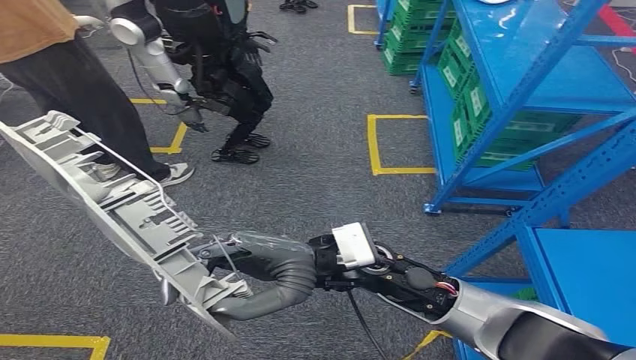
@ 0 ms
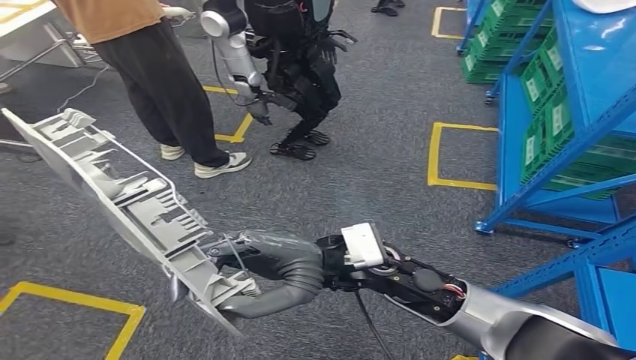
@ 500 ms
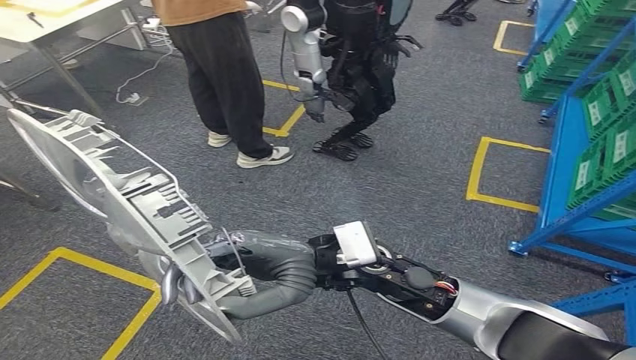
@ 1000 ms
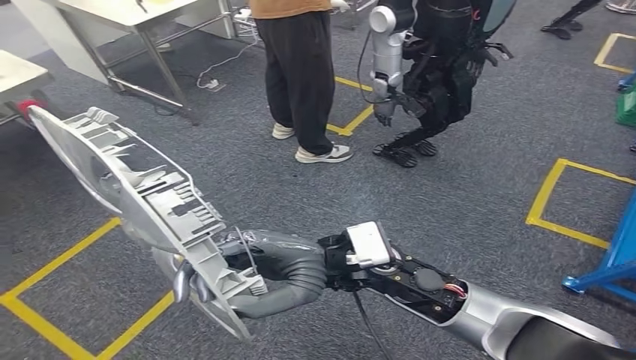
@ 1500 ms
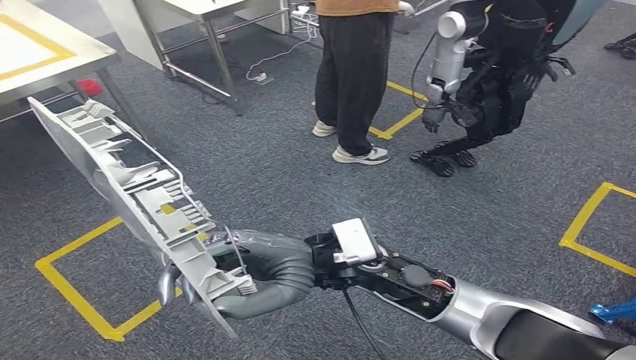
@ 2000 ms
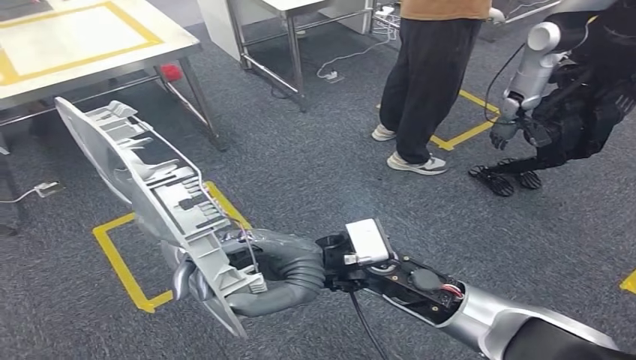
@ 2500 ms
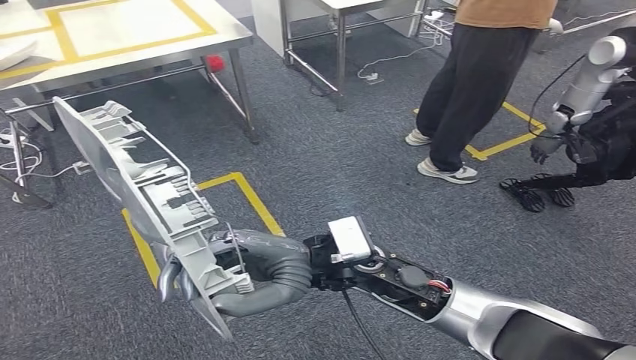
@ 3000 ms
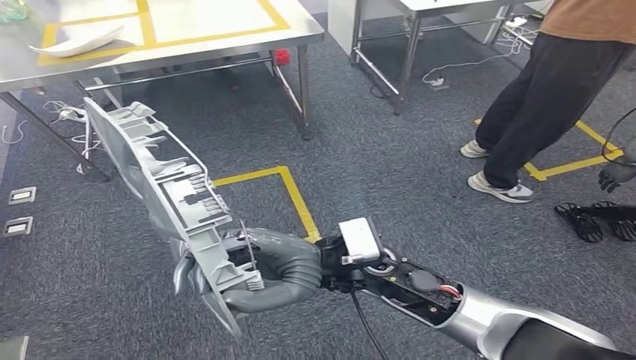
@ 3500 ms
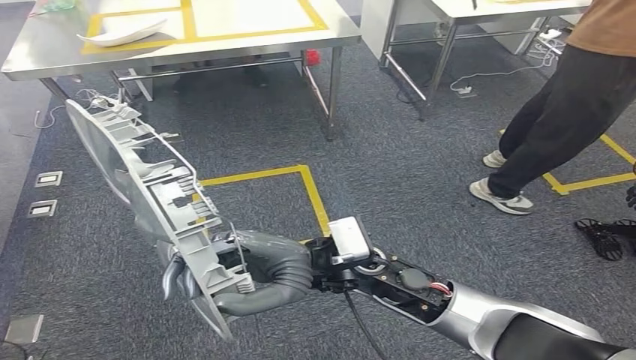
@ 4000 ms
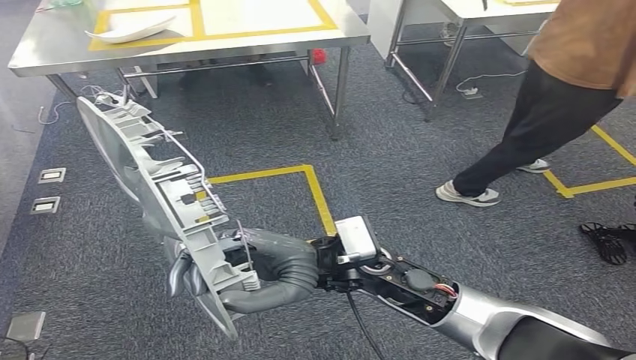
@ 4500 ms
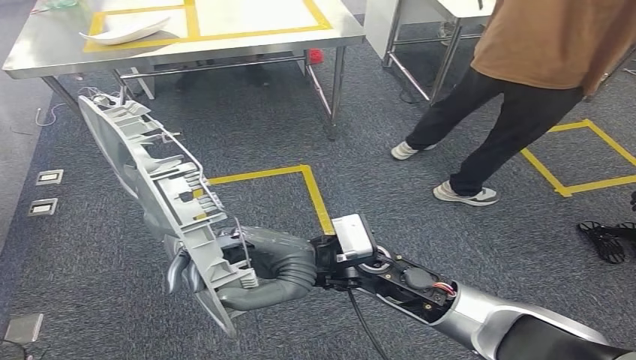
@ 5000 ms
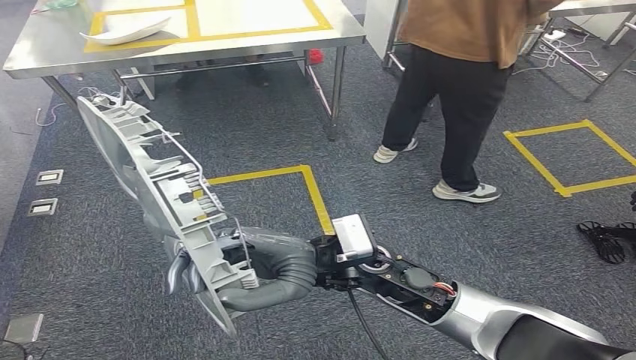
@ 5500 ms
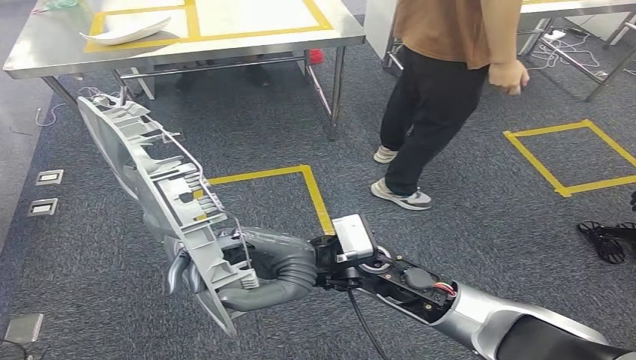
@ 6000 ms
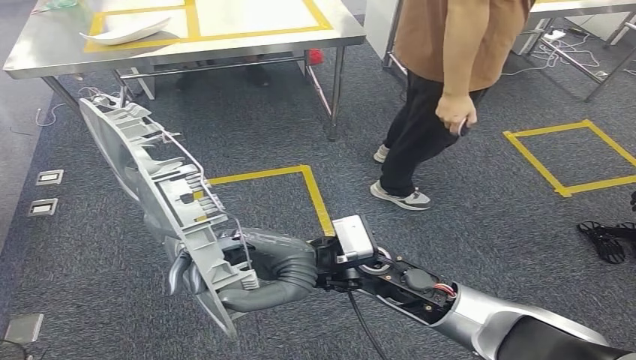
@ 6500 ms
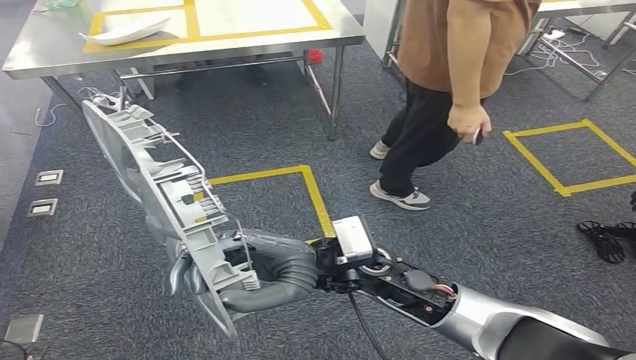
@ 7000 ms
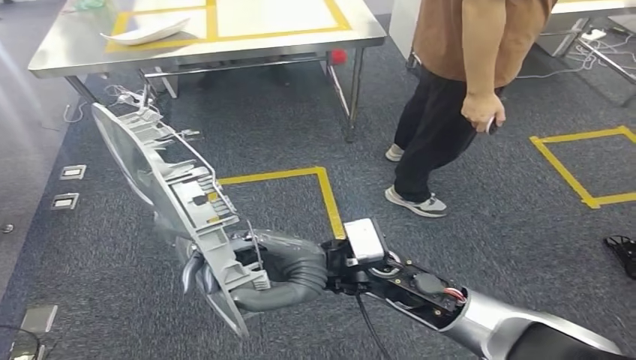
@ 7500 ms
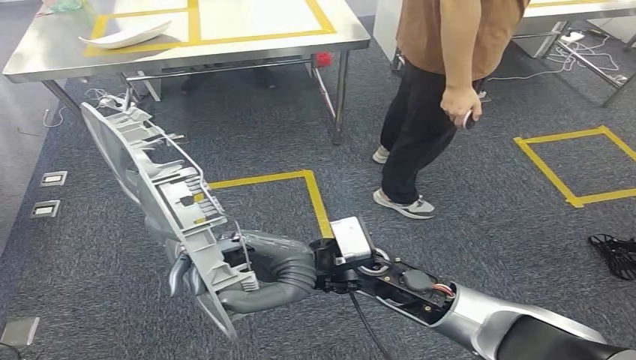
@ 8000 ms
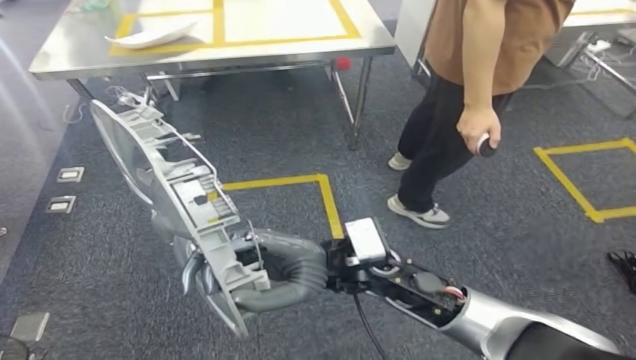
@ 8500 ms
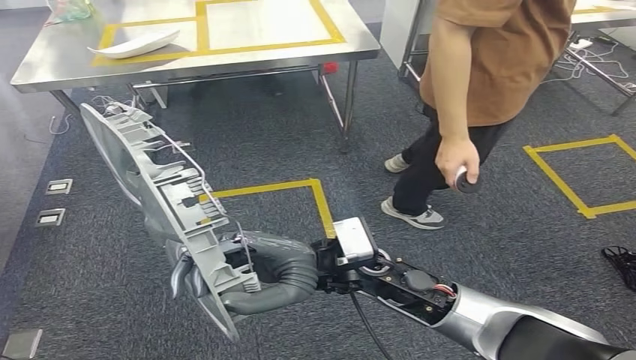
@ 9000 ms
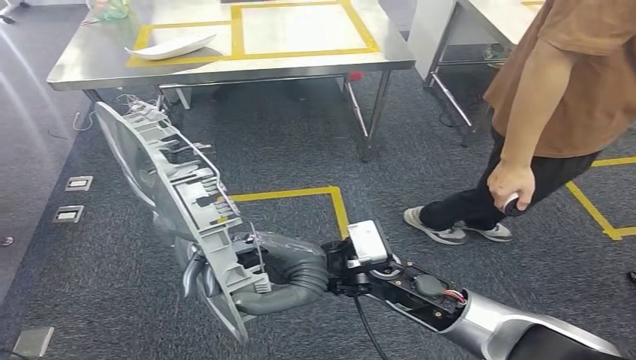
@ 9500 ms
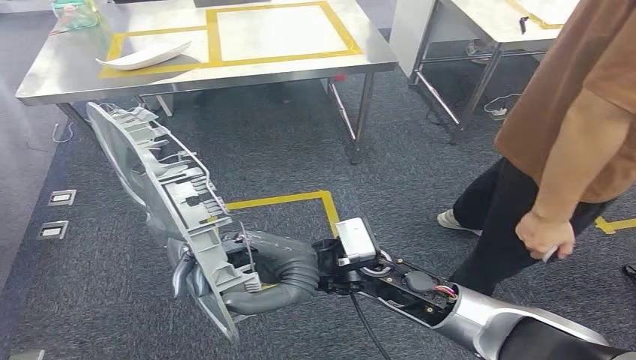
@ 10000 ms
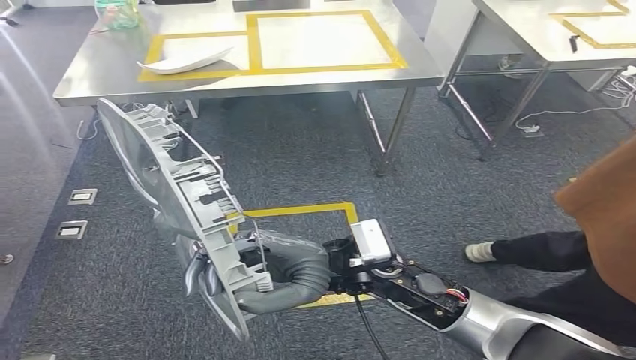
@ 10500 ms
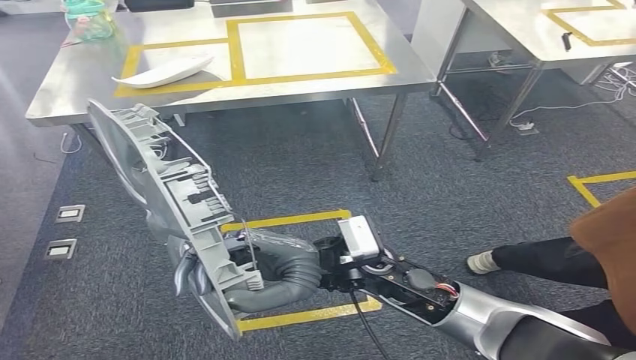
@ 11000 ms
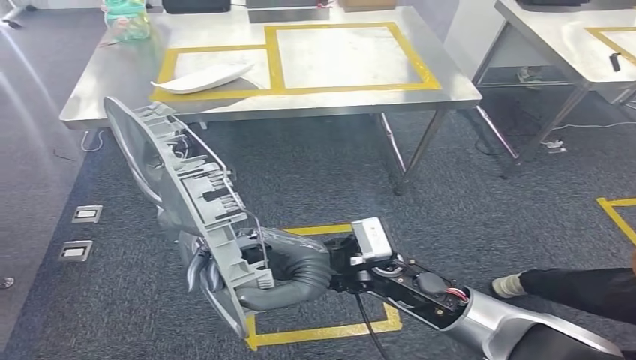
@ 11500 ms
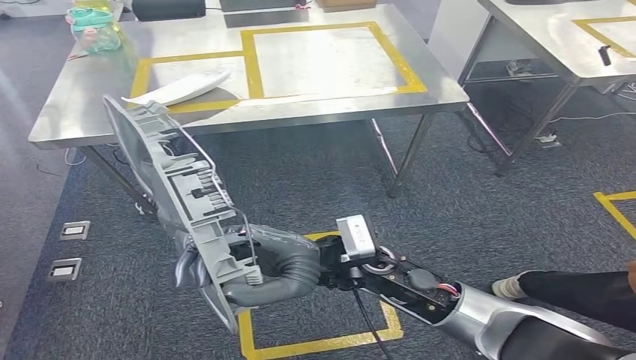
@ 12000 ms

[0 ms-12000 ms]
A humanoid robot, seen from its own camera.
6000 ms to 8000 ms: The two hands keep their place.

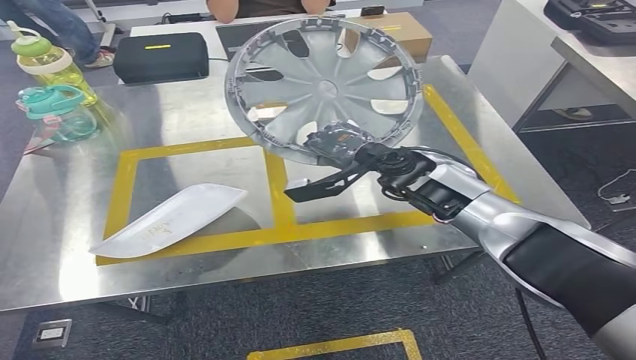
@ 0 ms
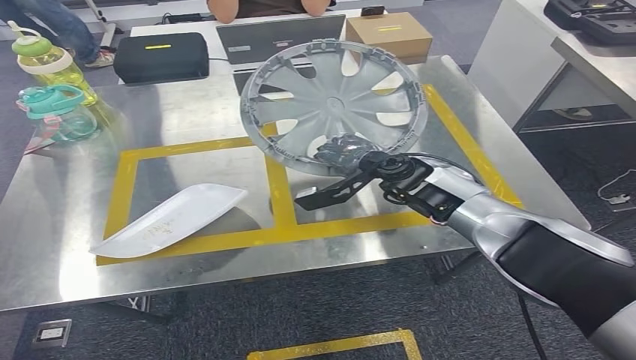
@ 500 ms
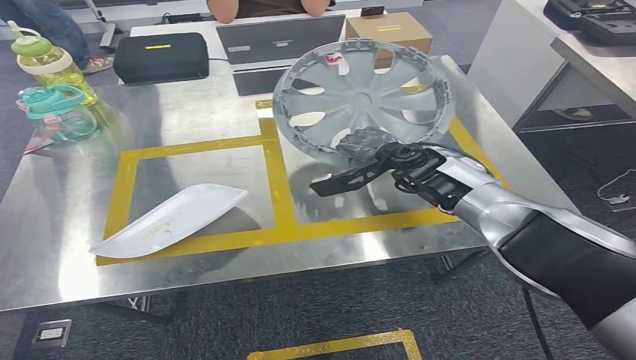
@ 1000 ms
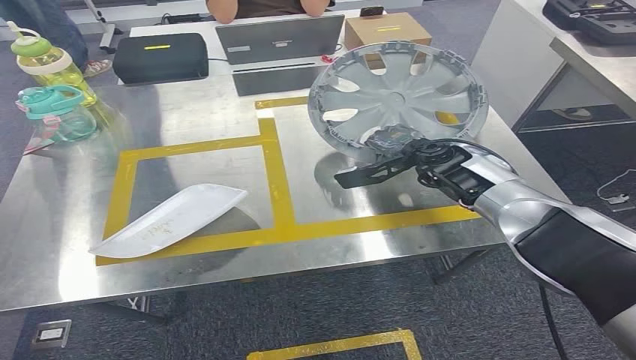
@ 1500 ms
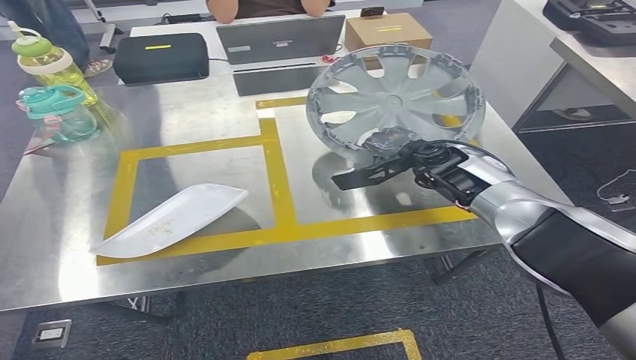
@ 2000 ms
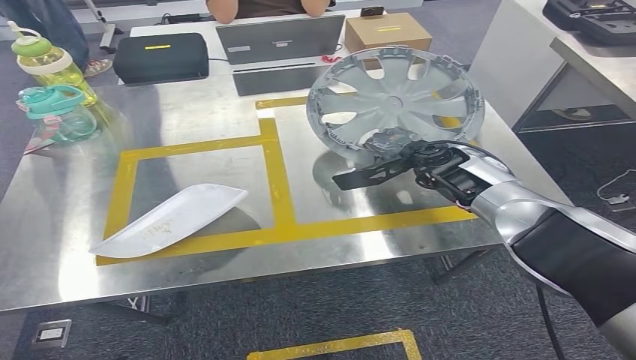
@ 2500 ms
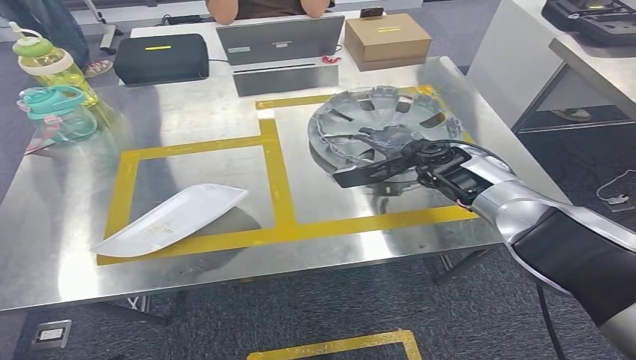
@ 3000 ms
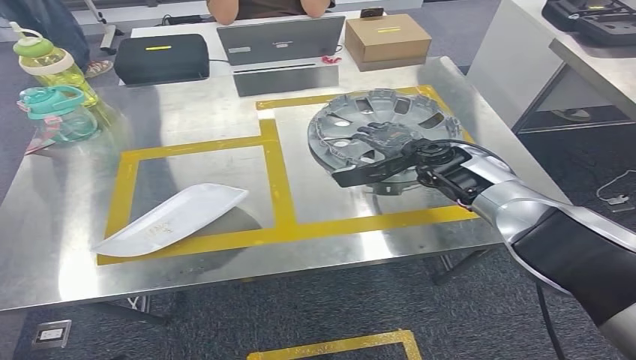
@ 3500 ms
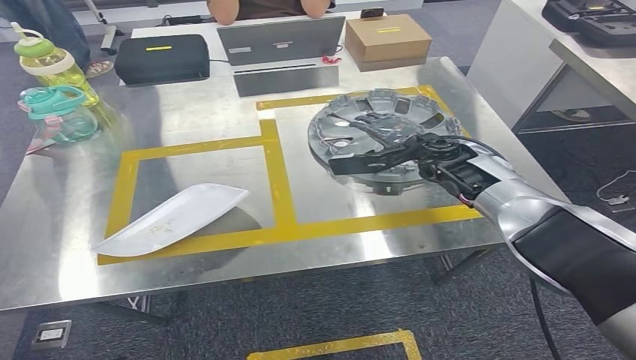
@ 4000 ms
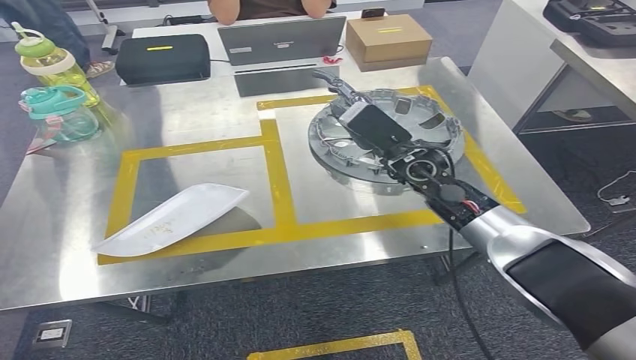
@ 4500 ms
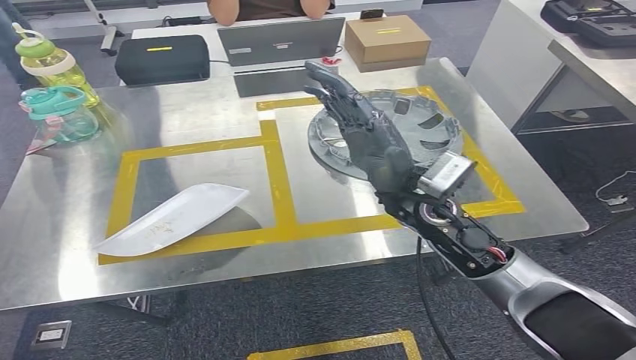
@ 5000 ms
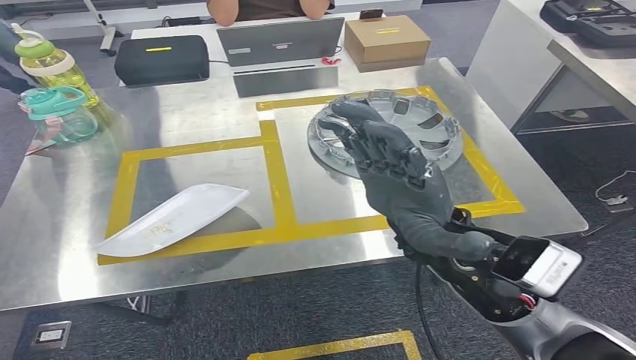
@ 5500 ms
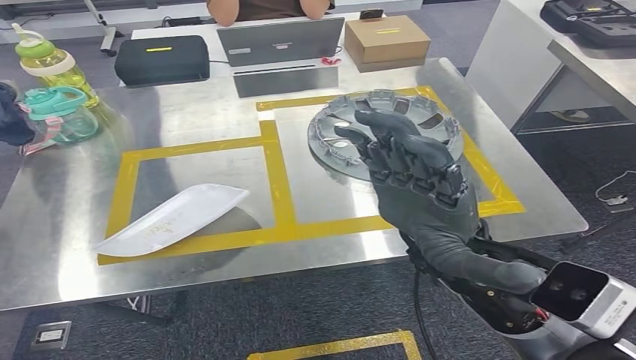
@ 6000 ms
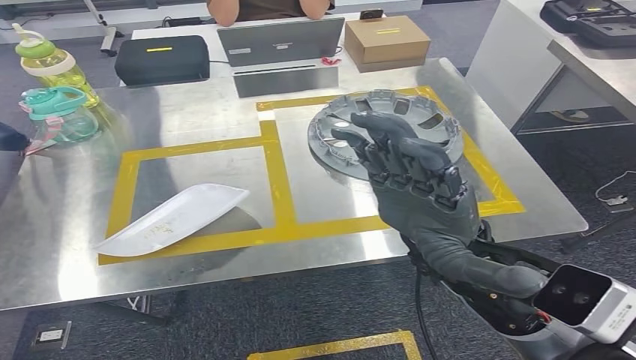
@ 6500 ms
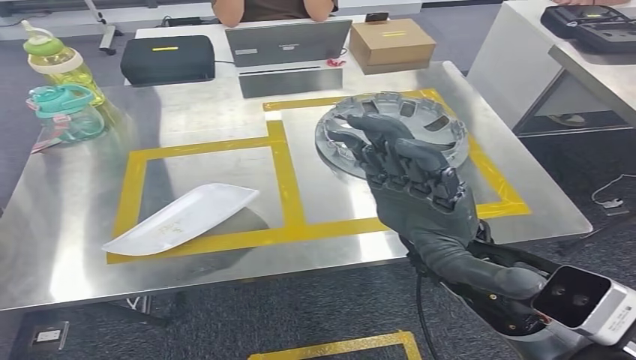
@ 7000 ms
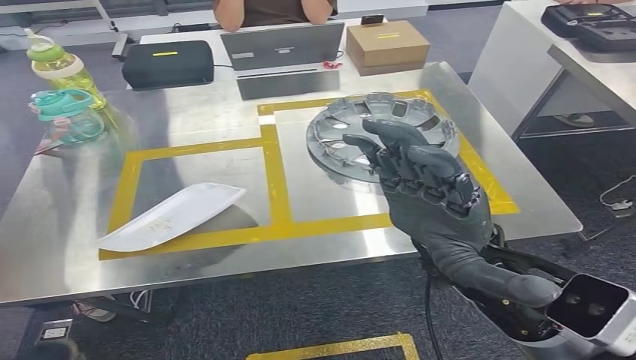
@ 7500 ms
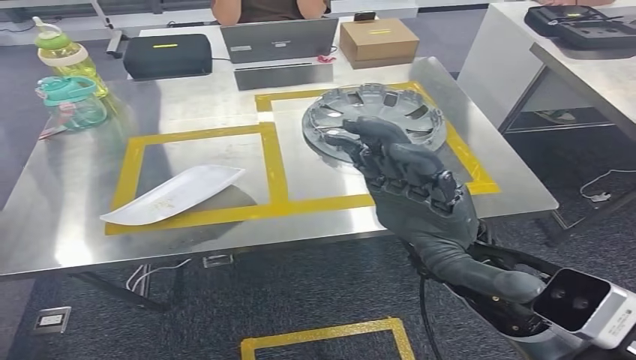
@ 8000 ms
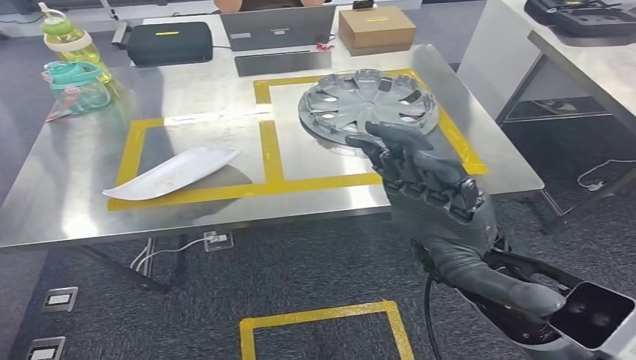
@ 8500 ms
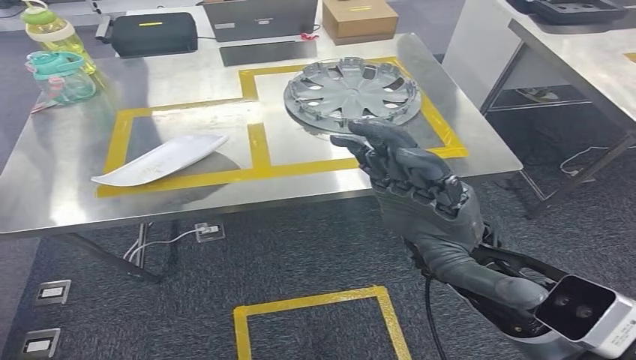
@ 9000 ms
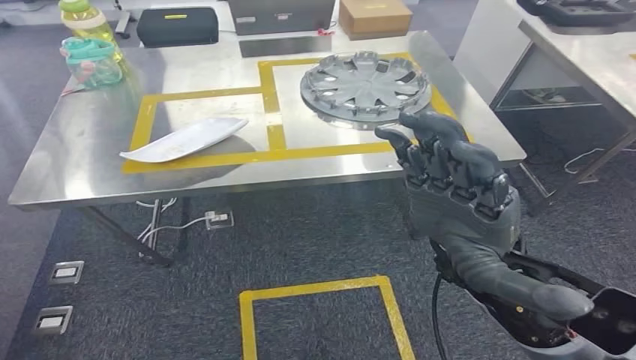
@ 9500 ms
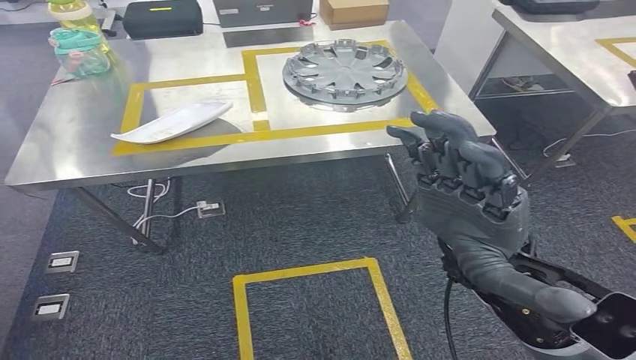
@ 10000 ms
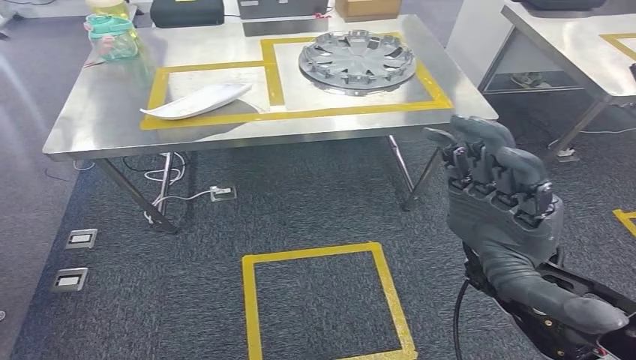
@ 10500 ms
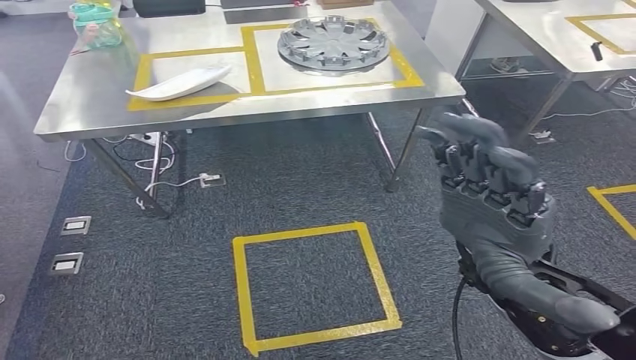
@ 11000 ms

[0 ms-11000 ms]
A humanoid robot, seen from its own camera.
Step, 0 ms to 4500 ms: Insert the small parts into the corresponding holes on the workbench.
0 ms to 2000 ms: The right hand goes about 10 cm to the right.
2000 ms to 3500 ms: Neither hand changes place.
3500 ms to 5500 ms: The right hand goes roughly 20 cm backward and to the left.
